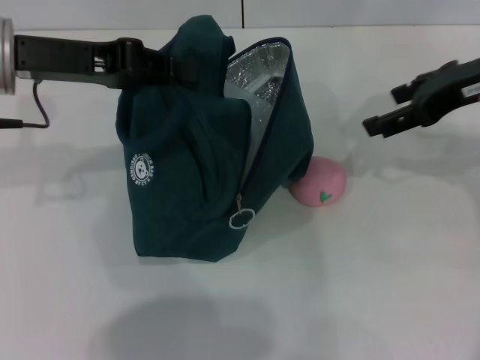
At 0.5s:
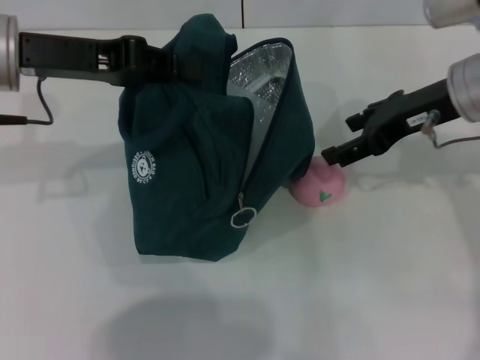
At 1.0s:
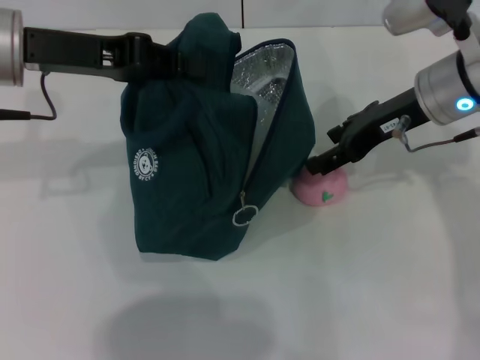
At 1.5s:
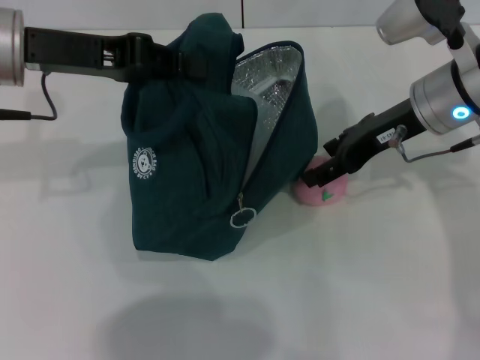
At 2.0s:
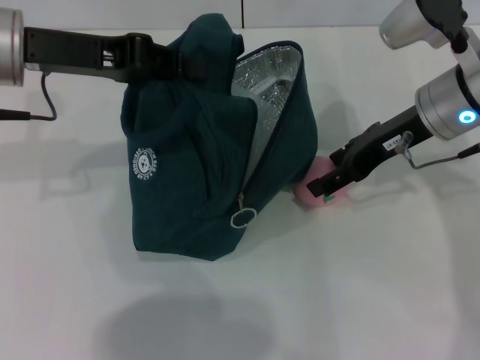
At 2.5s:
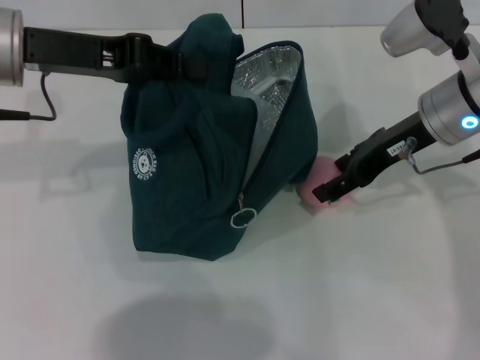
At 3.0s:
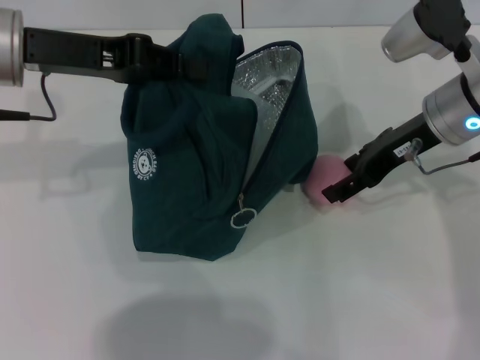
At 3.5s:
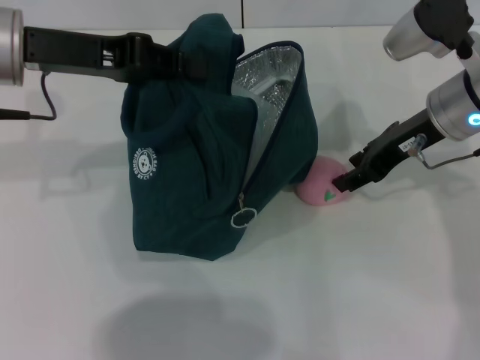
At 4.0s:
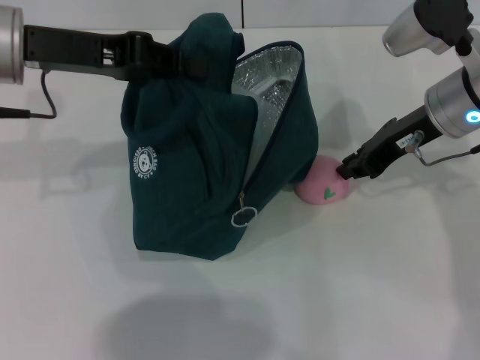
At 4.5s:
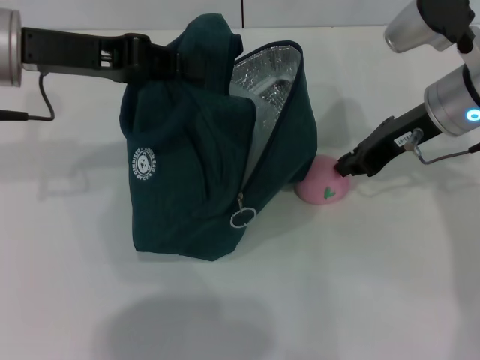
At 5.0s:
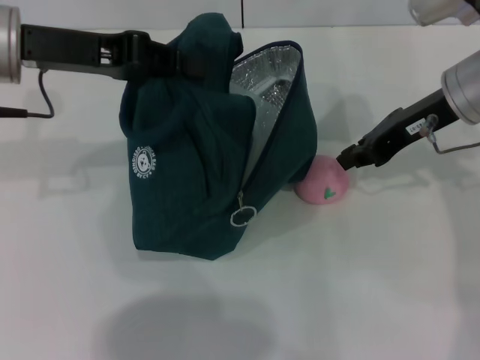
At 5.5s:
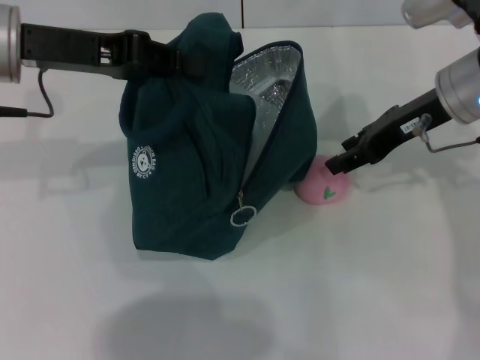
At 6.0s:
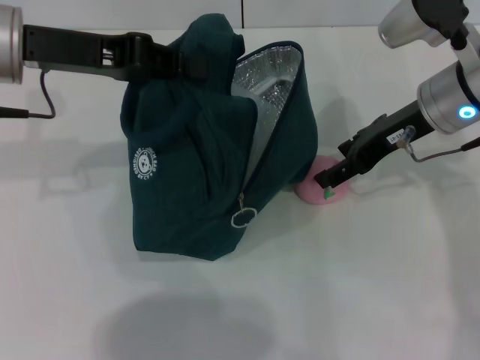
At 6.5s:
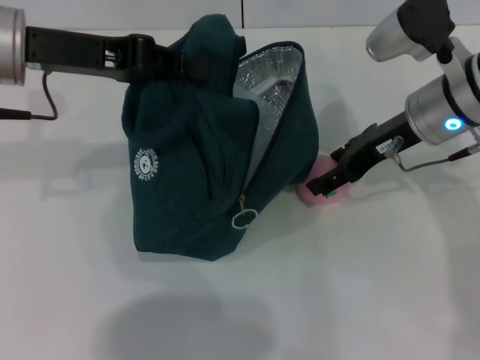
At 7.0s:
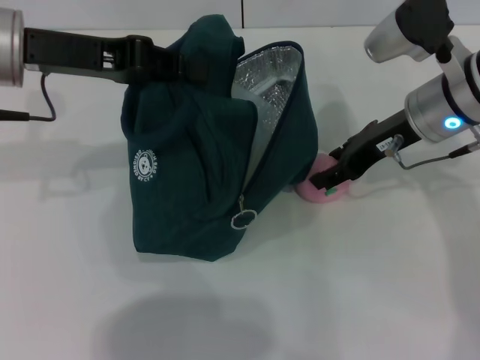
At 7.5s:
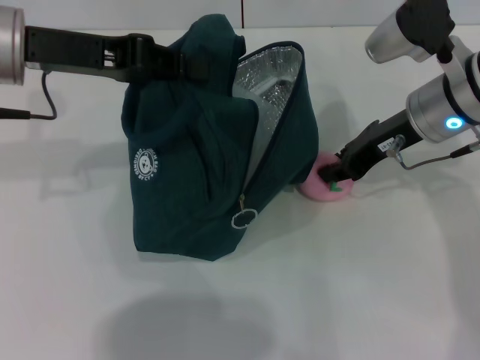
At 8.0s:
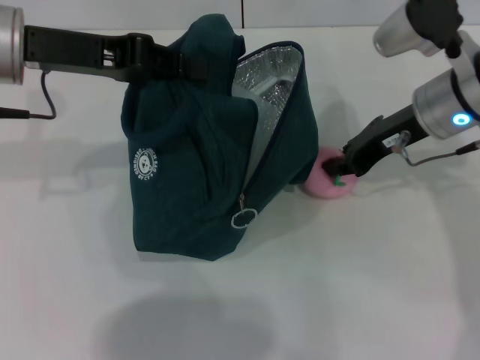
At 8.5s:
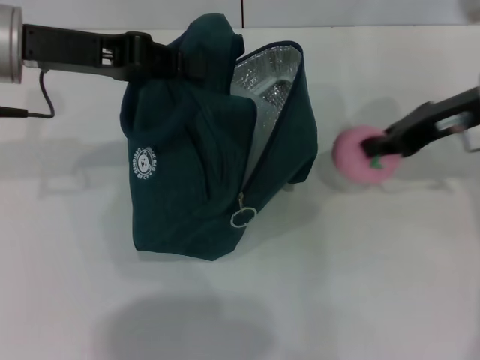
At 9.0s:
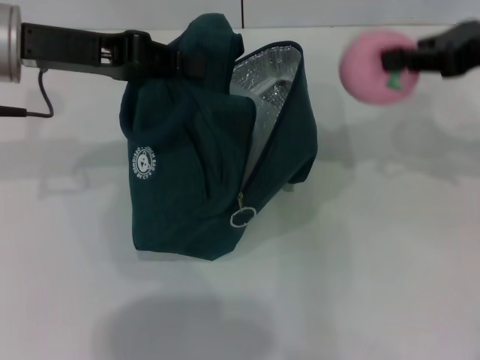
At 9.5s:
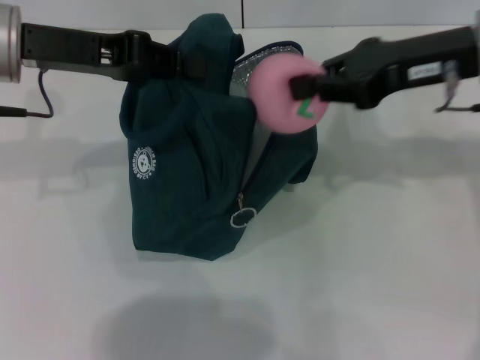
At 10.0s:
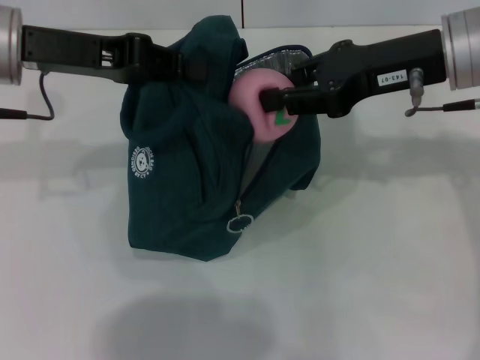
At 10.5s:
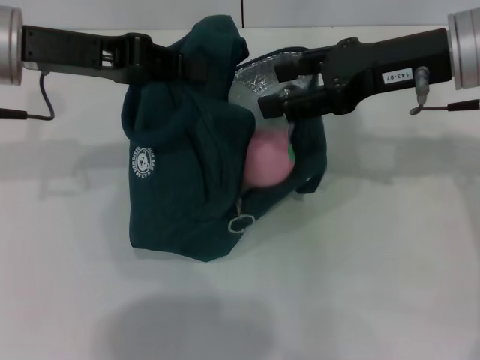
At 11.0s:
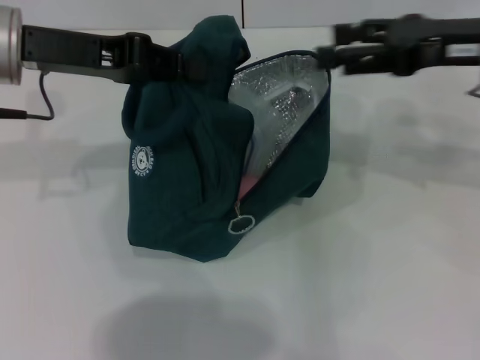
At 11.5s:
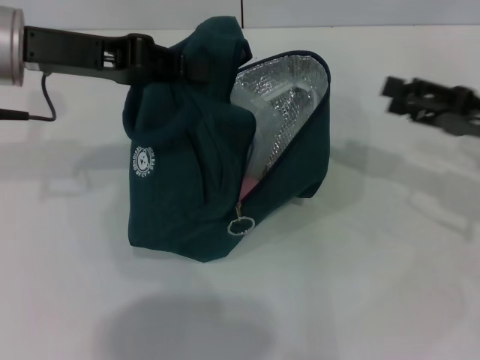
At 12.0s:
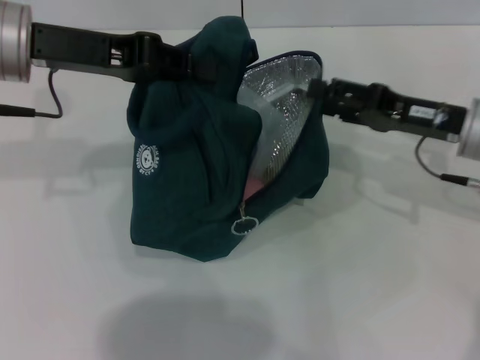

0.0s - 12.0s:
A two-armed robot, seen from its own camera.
Step, 0.0s - 7.5s: Grab the peach with your right hand.
0.0s - 2.0s: The right gripper travels to the left and downward by some 10 cm.
2.0s - 4.0s: The right gripper closes its fingers.
4.0s - 6.0s: The right gripper opens its fingers.
6.0s - 8.0s: The right gripper closes.
8.0s - 10.0s: The right gripper shifts about 5 cm upward.
10.0s - 12.0s: The right gripper moves downward and to the right, approximately 15 cm, and opens its fingers.

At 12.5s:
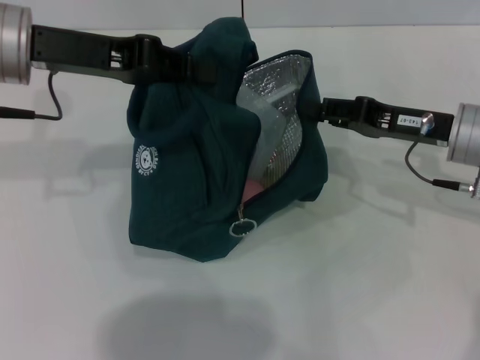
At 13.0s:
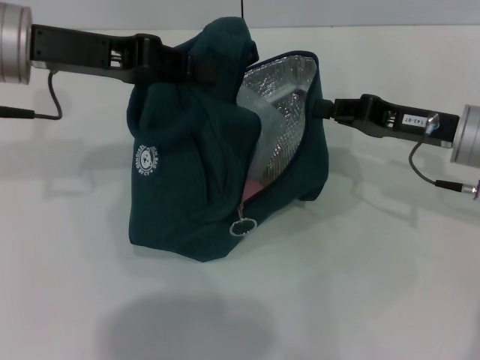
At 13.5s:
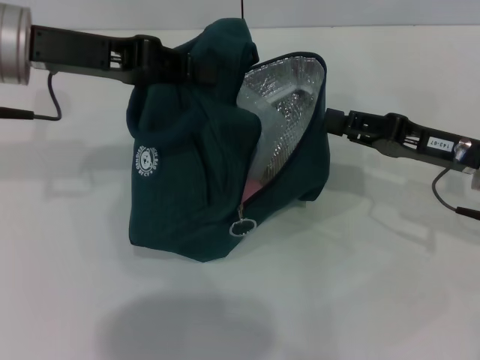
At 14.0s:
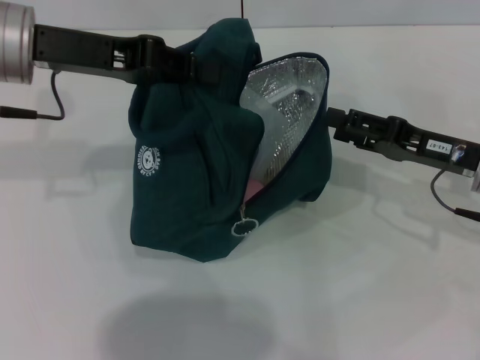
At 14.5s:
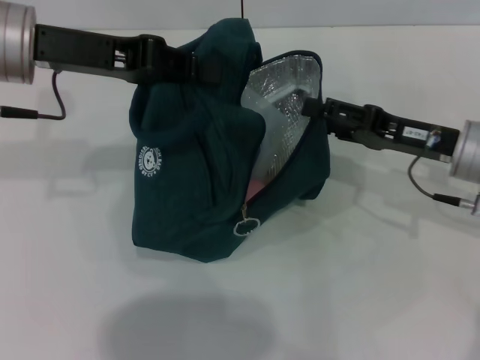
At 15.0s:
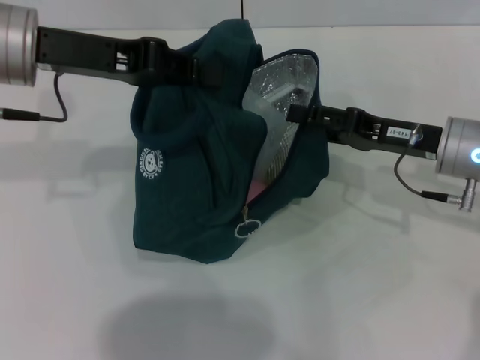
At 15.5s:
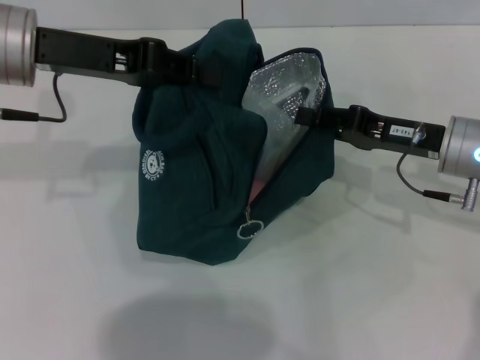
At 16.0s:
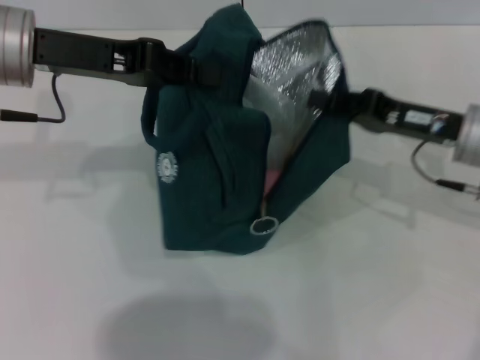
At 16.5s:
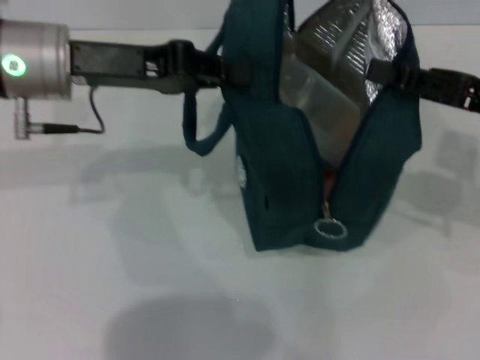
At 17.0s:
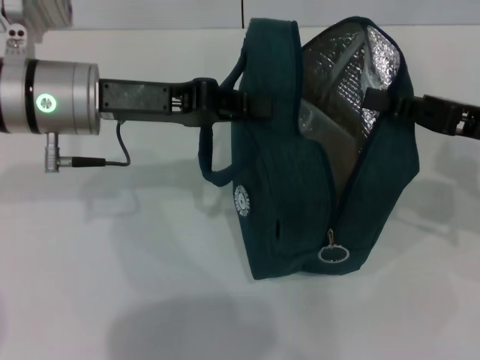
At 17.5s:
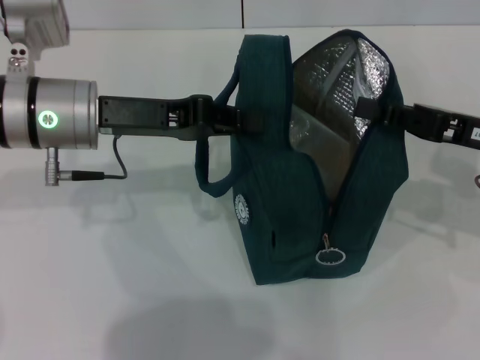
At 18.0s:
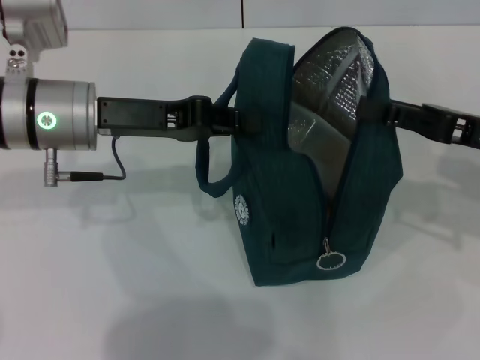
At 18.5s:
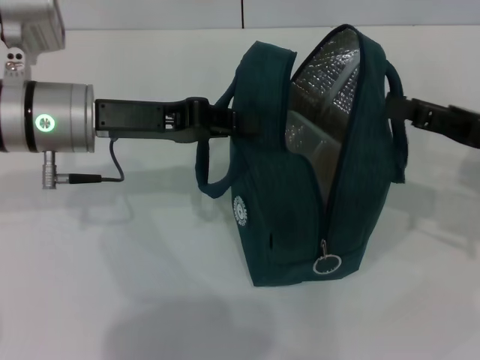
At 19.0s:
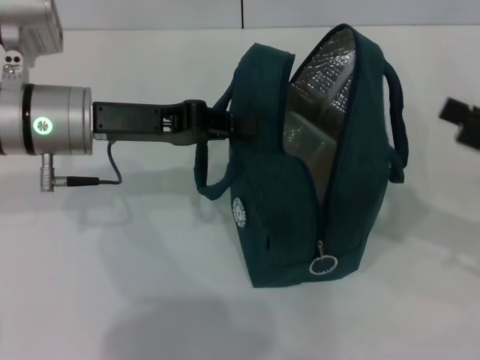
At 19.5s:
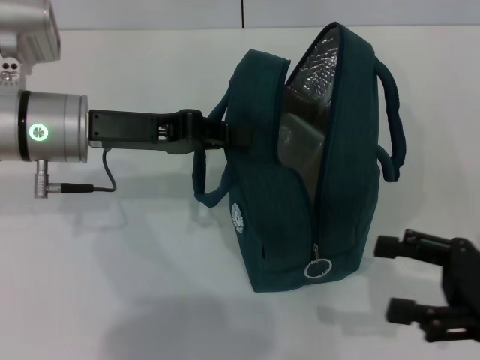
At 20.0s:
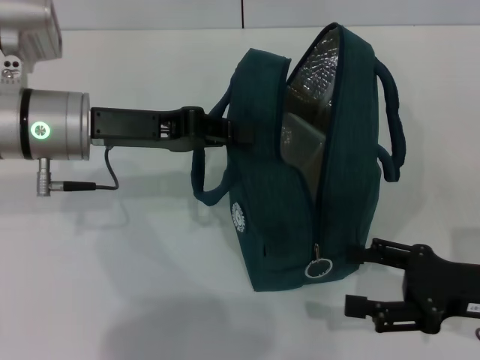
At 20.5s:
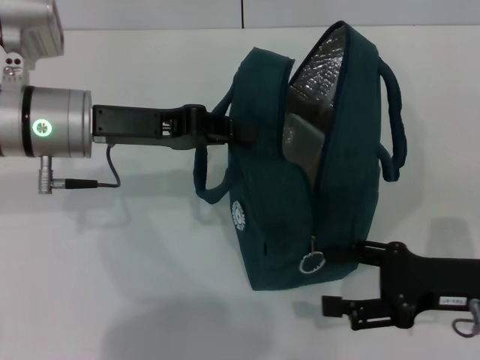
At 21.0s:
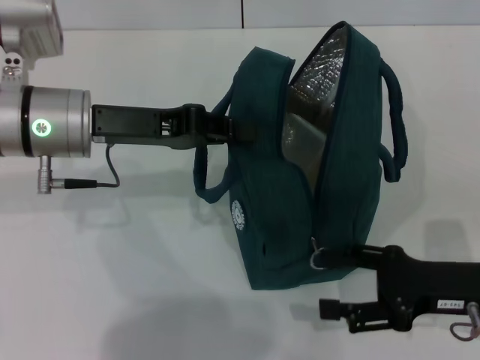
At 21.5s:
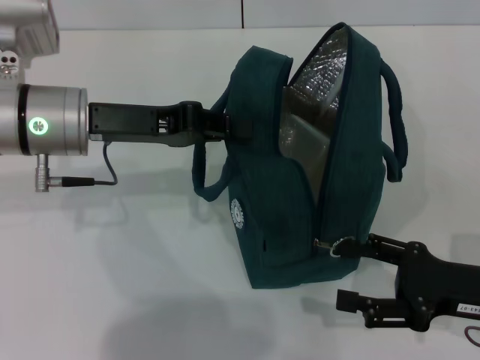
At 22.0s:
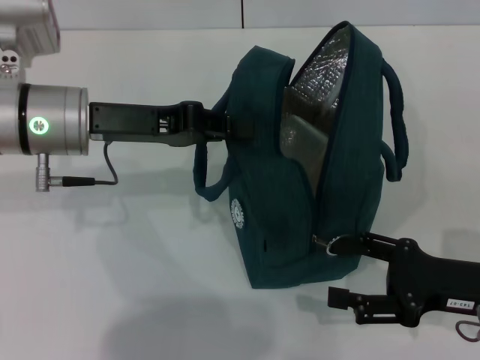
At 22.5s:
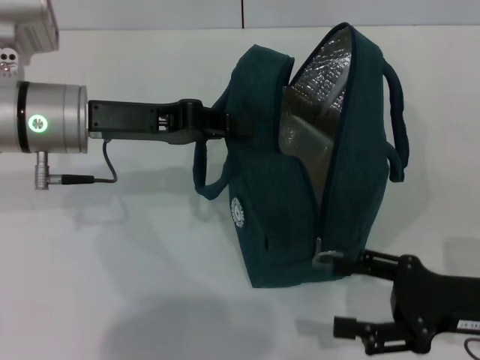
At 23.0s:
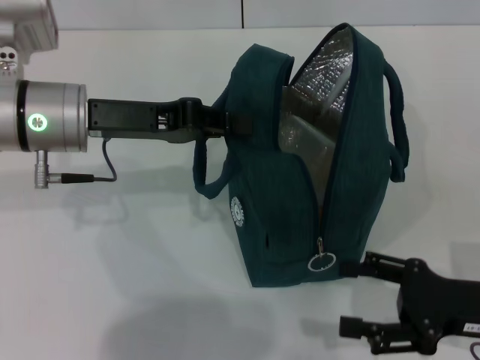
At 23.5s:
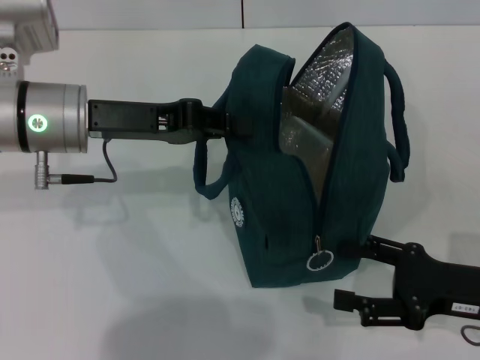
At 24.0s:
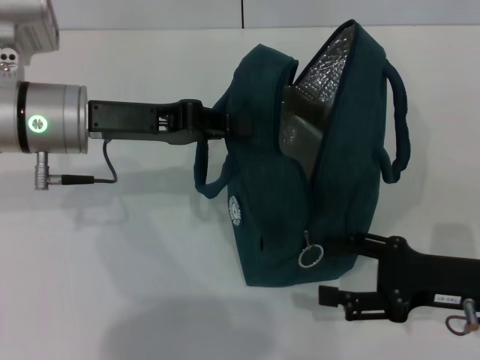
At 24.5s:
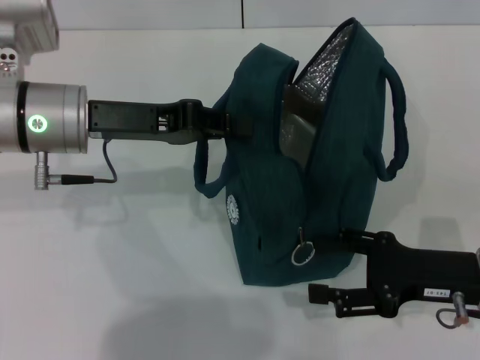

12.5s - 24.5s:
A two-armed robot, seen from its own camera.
Step, 12.5s - 18.0s: Hold the lunch bag with your right hand.
12.5s - 14.5s: The right gripper opens its fingers.
14.5s - 16.5s: The right gripper heads upward, covering about 5 cm, and closes.
16.5s - 18.5s: The right gripper opens up.
18.5s - 20.5s: The right gripper goes approximately 10 cm downward and backward.
20.5s - 24.5s: The grippers move only a little.

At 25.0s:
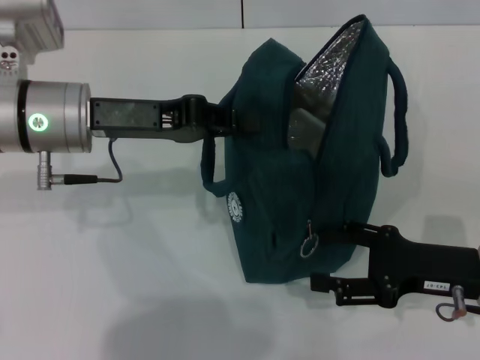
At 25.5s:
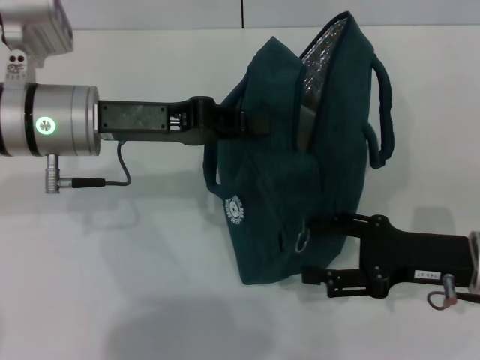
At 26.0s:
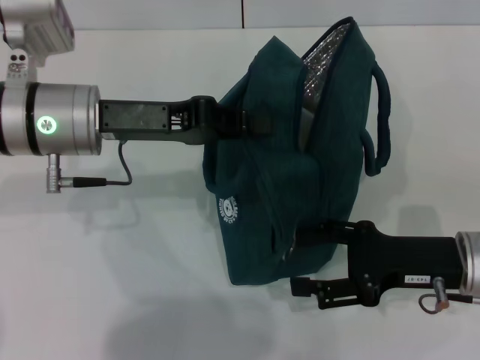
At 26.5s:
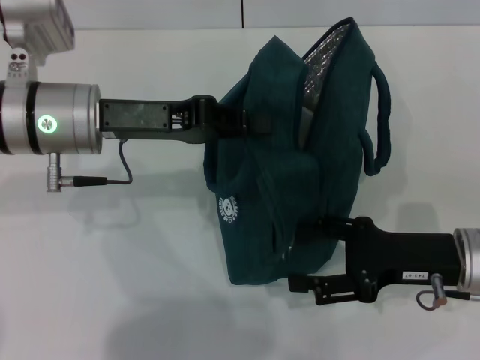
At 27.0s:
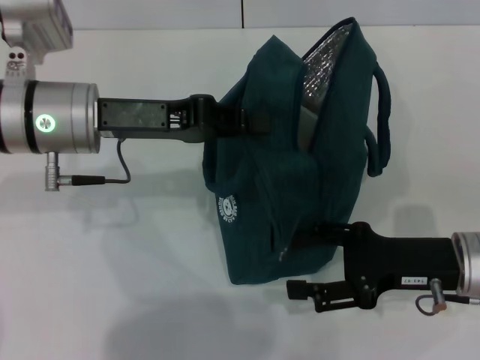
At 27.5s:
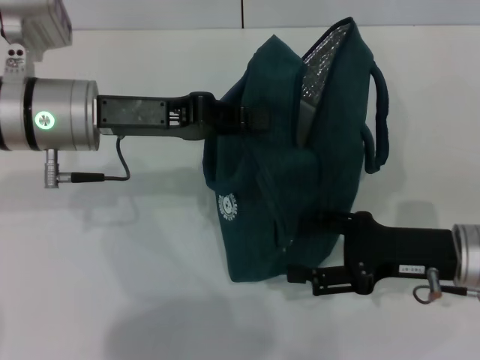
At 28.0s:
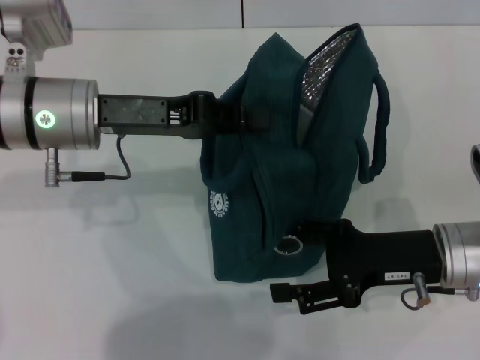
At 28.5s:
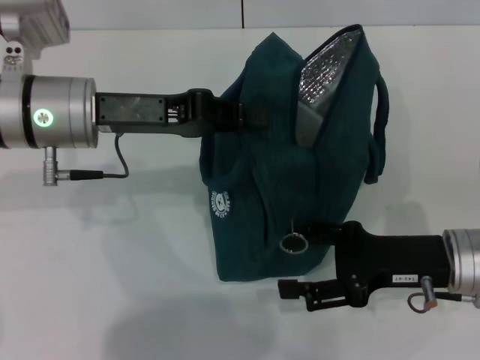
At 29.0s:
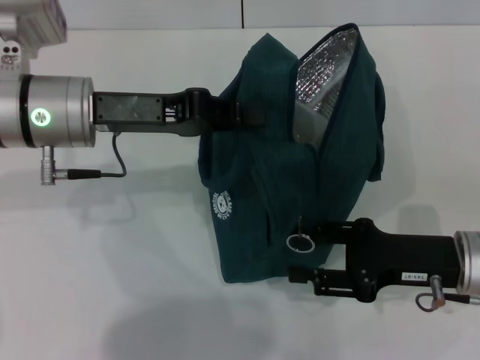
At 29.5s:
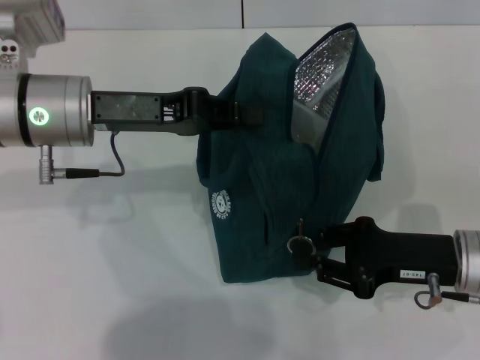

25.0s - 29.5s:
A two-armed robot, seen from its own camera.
25.0s - 27.0s: The grippers stay close to where they were, moving slightly.
27.0s - 29.5s: The right gripper closes its fingers.
